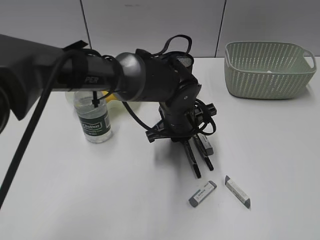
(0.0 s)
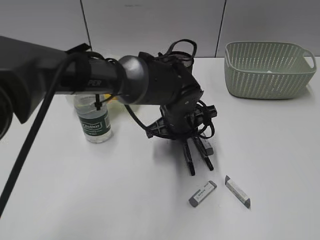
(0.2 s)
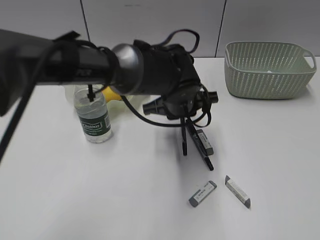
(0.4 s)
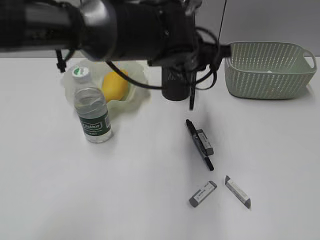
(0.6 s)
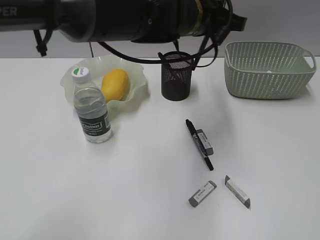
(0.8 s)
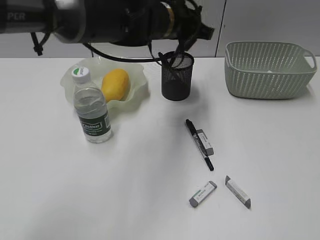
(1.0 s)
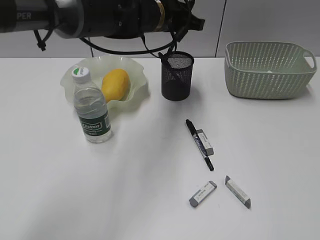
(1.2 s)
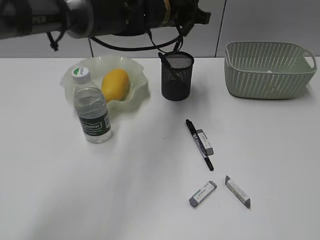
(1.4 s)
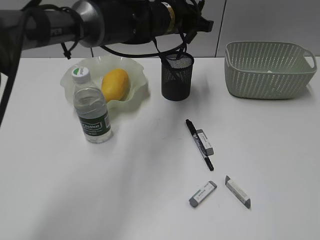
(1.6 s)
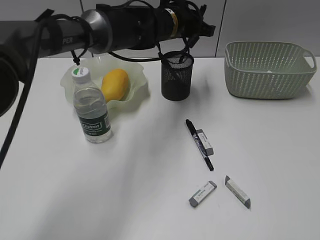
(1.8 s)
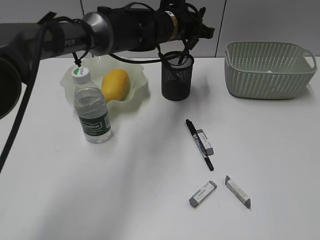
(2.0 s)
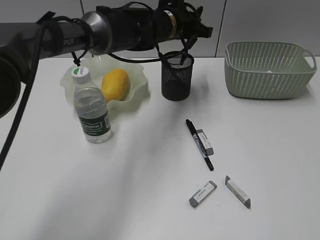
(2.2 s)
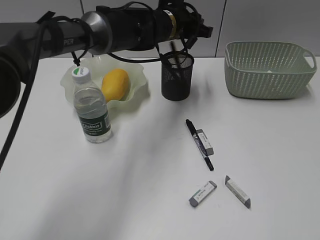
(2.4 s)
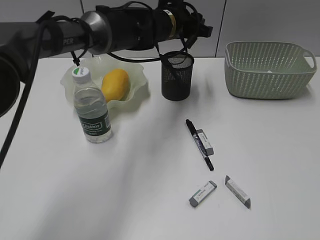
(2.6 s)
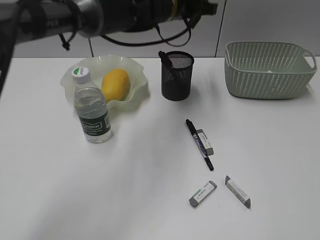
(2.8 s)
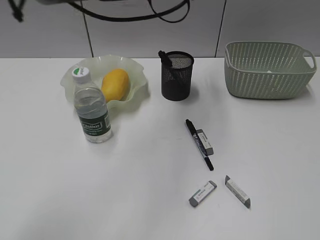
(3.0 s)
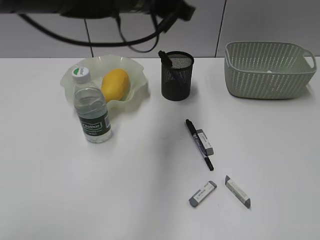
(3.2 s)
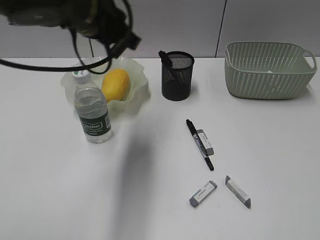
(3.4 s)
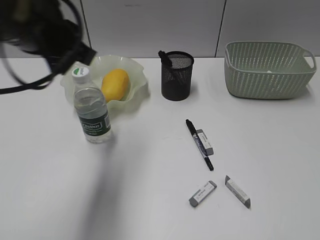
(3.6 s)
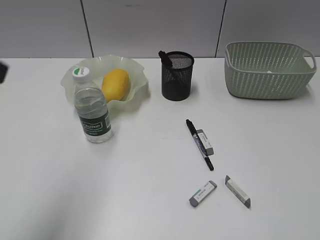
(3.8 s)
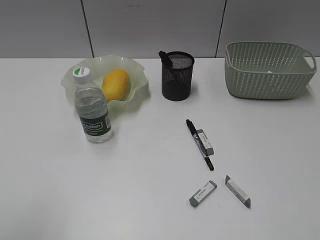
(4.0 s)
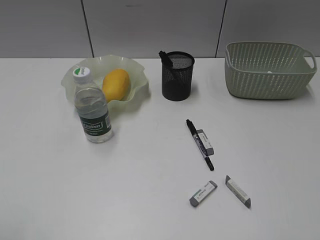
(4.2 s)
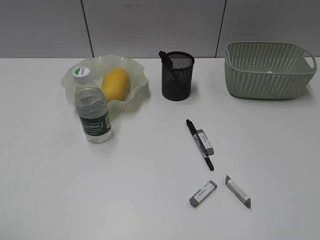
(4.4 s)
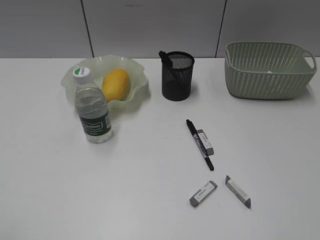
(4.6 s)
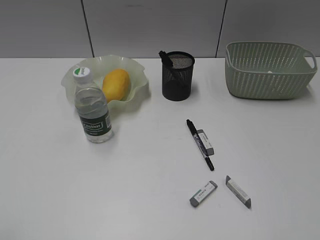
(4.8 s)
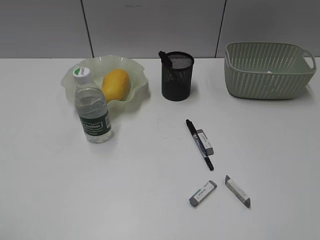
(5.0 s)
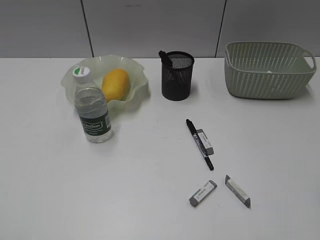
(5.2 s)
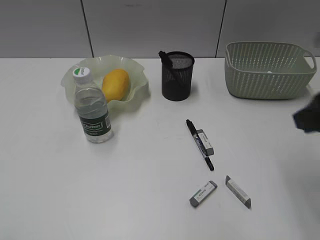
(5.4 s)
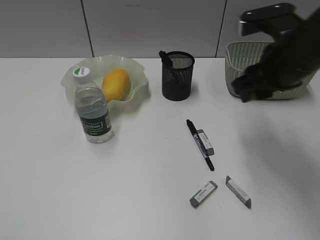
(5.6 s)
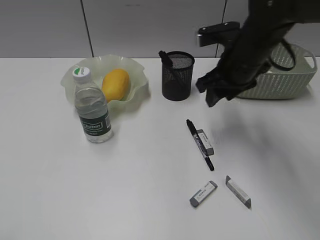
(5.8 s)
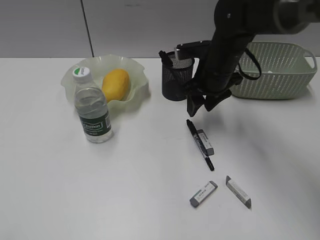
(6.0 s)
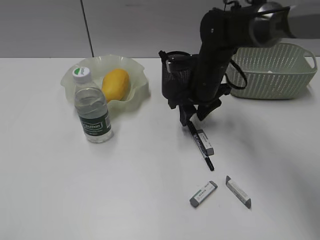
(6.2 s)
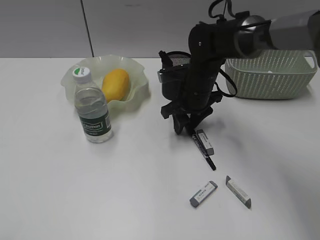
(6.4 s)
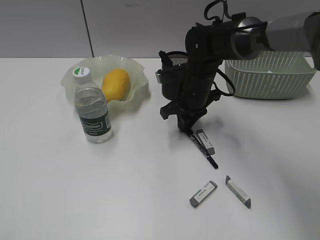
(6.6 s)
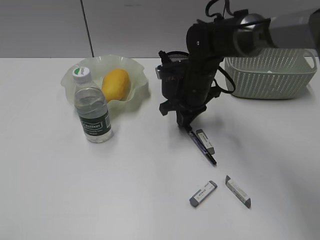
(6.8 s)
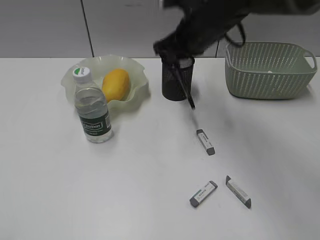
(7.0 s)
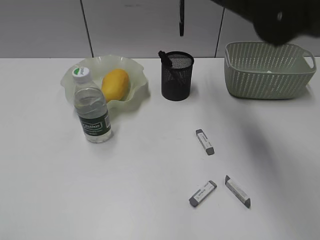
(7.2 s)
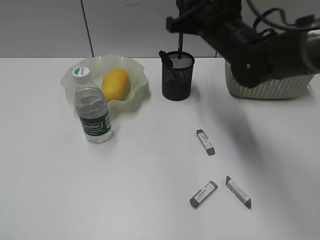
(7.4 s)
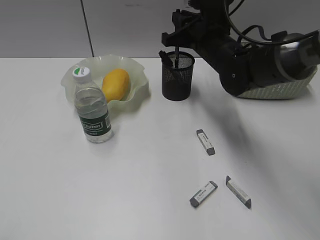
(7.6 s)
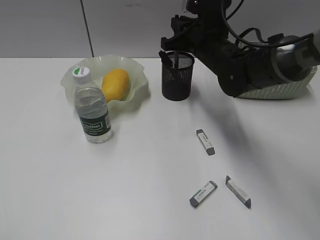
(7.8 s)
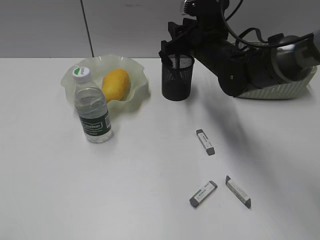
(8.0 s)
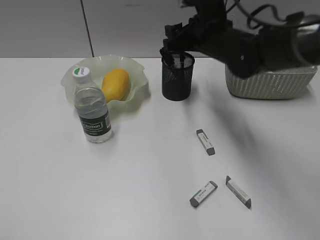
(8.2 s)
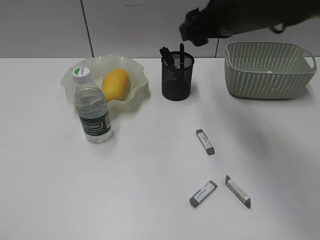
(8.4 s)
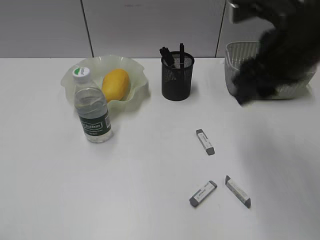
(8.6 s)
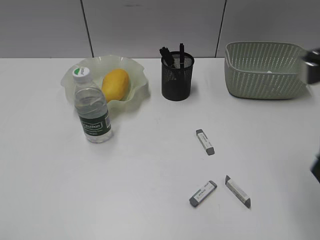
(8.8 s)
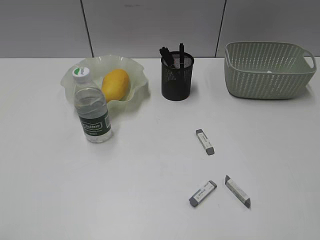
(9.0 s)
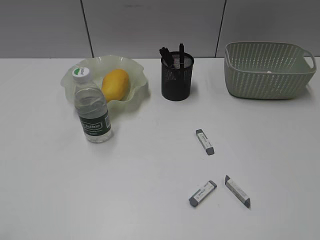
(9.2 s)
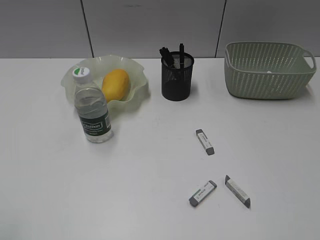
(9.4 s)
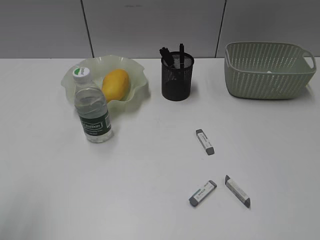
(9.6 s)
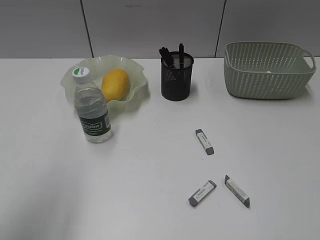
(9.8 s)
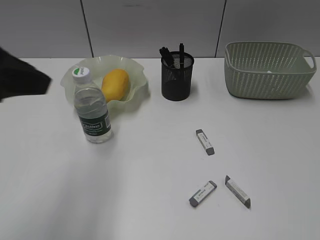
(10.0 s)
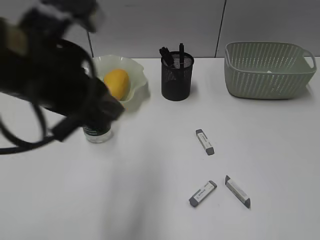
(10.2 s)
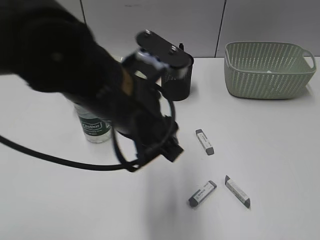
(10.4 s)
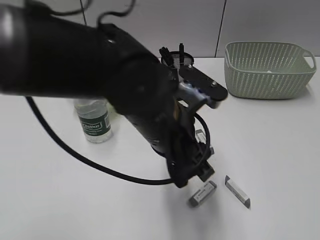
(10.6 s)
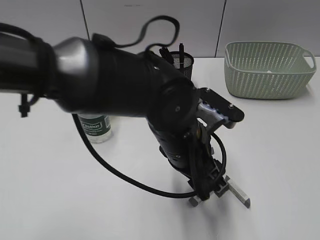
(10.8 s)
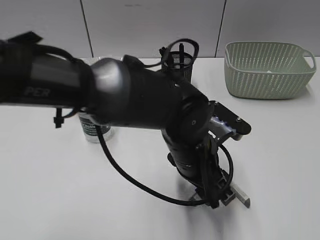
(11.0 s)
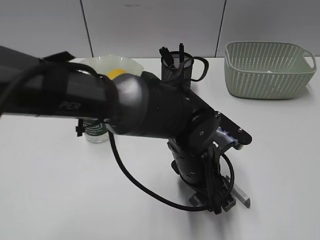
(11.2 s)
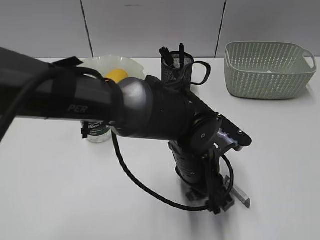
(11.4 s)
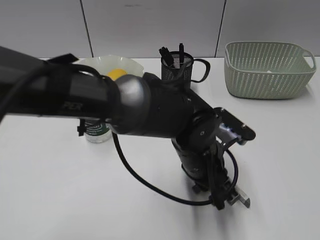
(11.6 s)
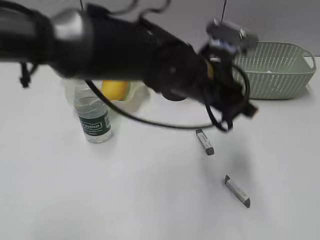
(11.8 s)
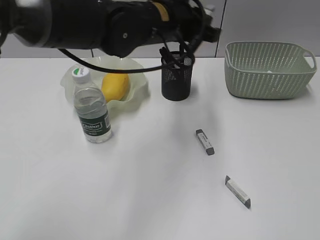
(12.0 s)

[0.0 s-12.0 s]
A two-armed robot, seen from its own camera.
Step, 0.2 to 2.4 s: Place the black pen in pen holder with left gripper.
Step, 2.6 to 6.6 s: Grasp the black pen with right gripper.
Step, 6.8 to 8.2 s: Place the black pen in pen holder with right gripper.
Step, 8.4 to 11.4 s: Grasp the eraser with left gripper.
0.0 to 1.6 s: The left gripper shifts approximately 15 cm forward and upward.
1.6 to 3.0 s: The left gripper travels upward and backward by approximately 10 cm.
3.0 to 4.4 s: The left gripper moves backward and to the left, roughly 50 cm, and opens up.
4.4 to 6.0 s: The right gripper shifts about 50 cm forward and to the left.
6.0 to 7.6 s: The right gripper swings up and down, some 20 cm each way, with 2 reversals, and closes up.
7.6 to 9.0 s: The right gripper travels backward and to the right by some 35 cm, and opens up.
9.0 to 10.4 s: The left gripper travels to the right and forward by approximately 35 cm. Meanwhile the right gripper is displaced backward by approximately 10 cm.
10.4 to 12.0 s: The left gripper goes about 15 cm forward, travels downward and back again, some 15 cm each way, and closes its fingers.

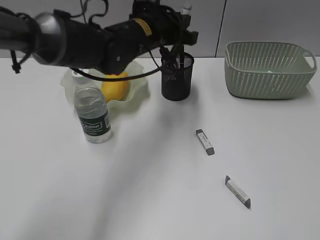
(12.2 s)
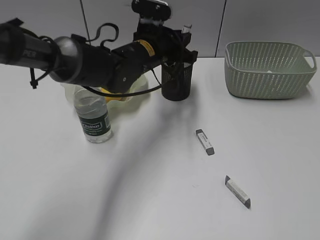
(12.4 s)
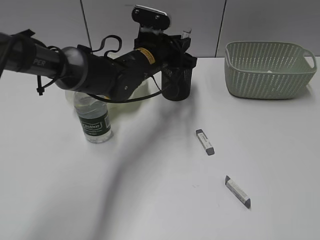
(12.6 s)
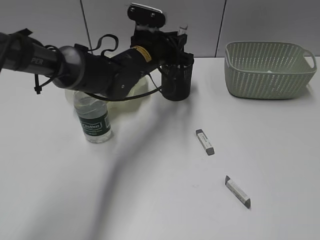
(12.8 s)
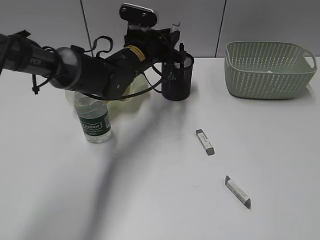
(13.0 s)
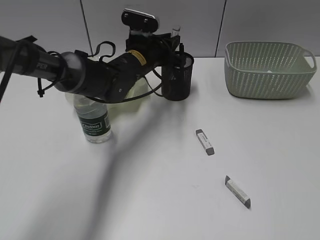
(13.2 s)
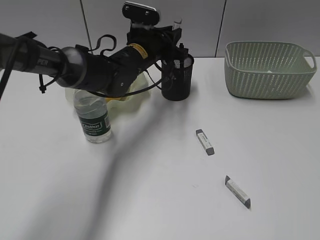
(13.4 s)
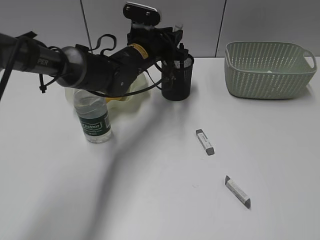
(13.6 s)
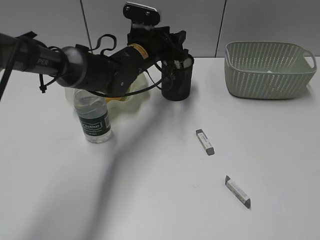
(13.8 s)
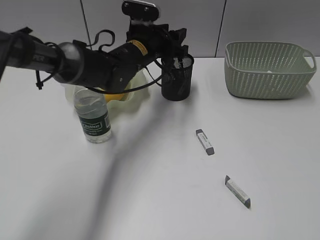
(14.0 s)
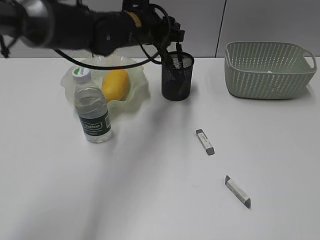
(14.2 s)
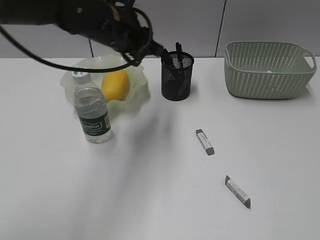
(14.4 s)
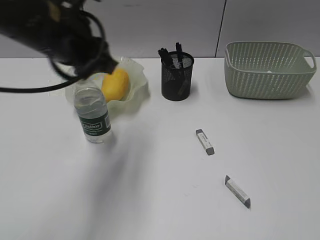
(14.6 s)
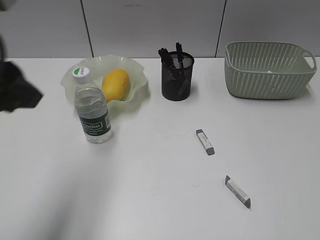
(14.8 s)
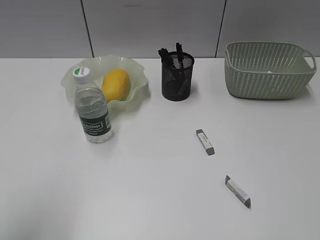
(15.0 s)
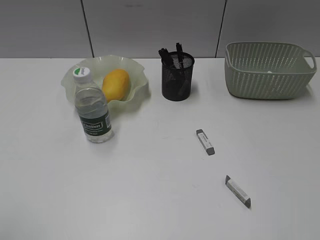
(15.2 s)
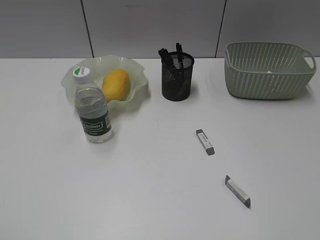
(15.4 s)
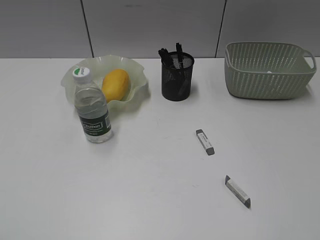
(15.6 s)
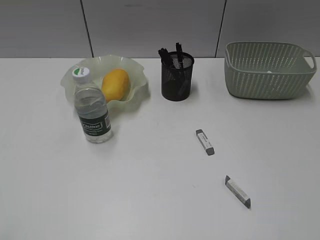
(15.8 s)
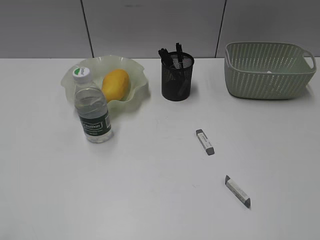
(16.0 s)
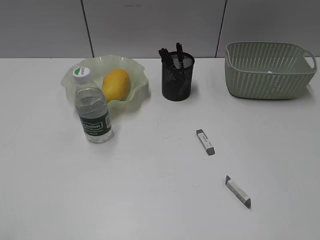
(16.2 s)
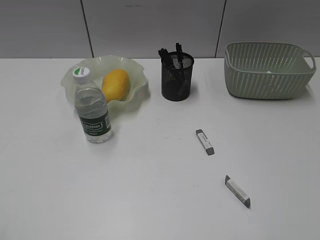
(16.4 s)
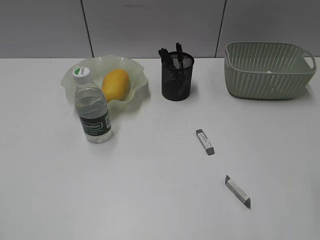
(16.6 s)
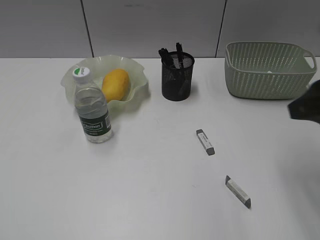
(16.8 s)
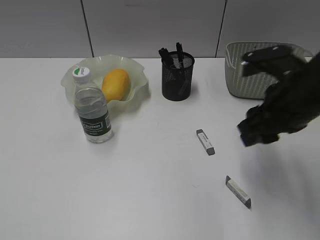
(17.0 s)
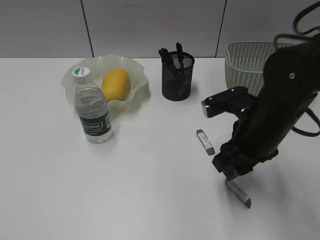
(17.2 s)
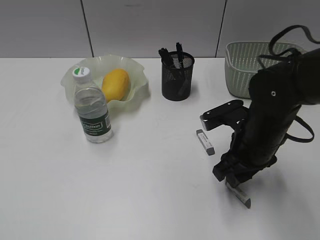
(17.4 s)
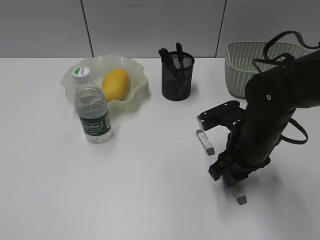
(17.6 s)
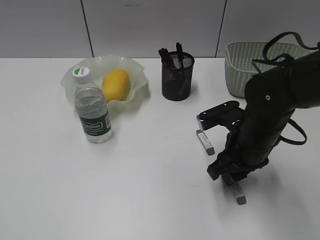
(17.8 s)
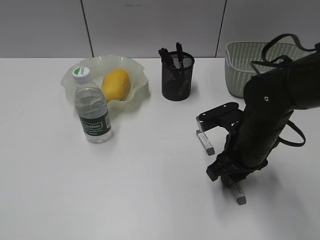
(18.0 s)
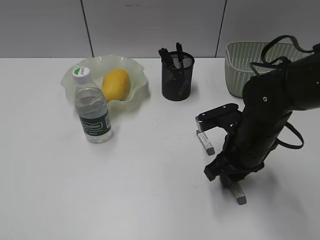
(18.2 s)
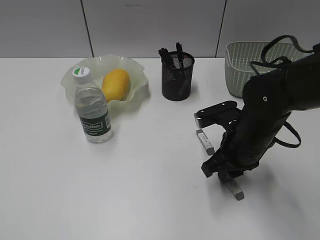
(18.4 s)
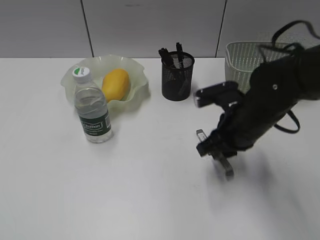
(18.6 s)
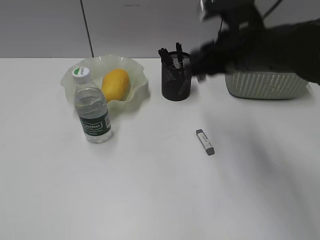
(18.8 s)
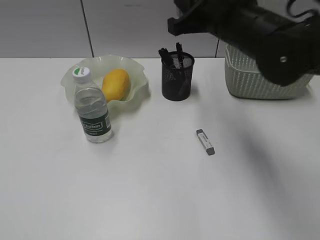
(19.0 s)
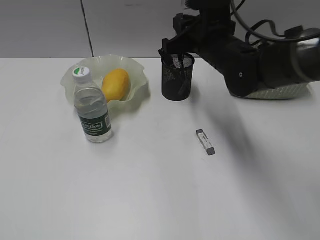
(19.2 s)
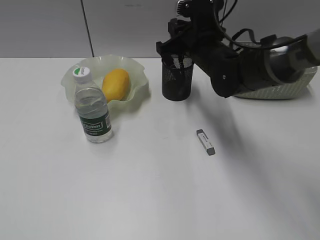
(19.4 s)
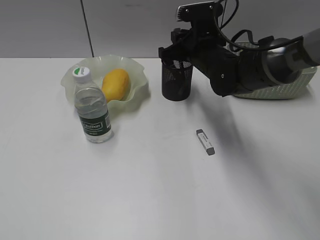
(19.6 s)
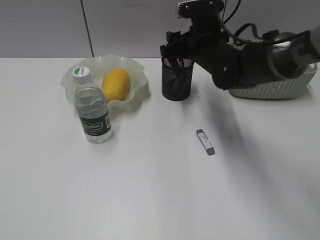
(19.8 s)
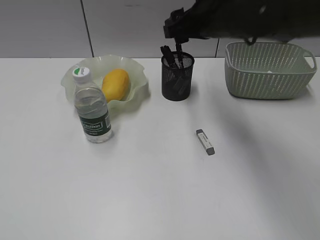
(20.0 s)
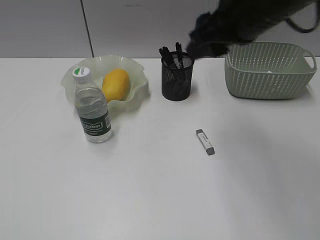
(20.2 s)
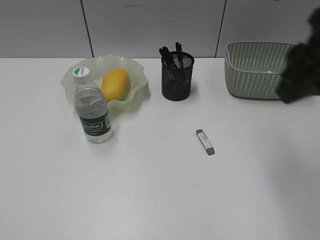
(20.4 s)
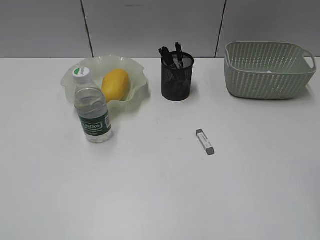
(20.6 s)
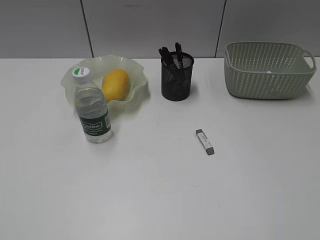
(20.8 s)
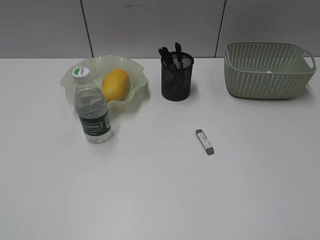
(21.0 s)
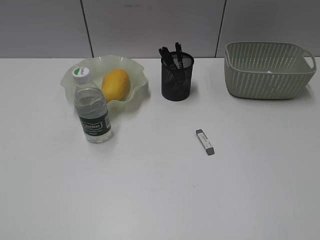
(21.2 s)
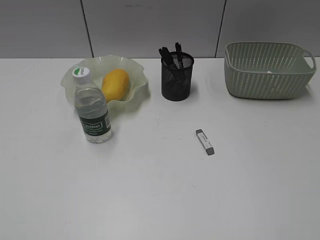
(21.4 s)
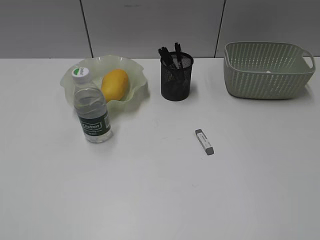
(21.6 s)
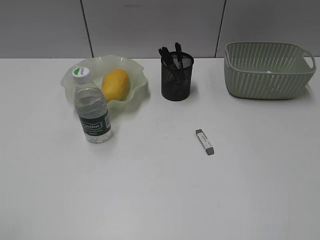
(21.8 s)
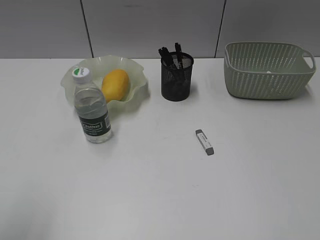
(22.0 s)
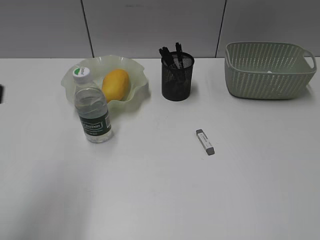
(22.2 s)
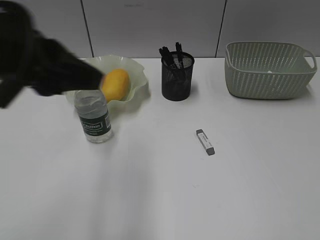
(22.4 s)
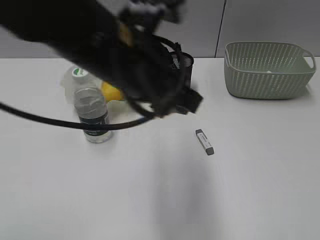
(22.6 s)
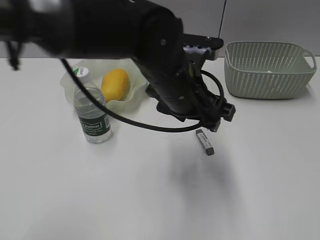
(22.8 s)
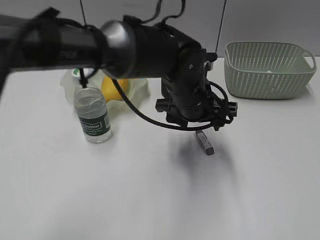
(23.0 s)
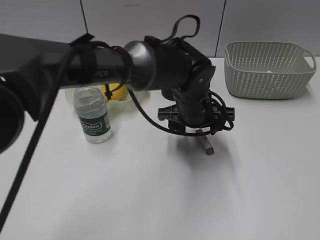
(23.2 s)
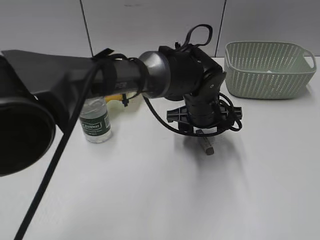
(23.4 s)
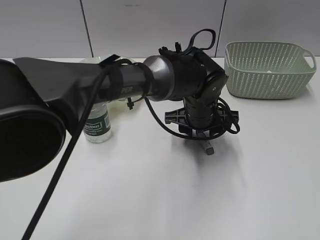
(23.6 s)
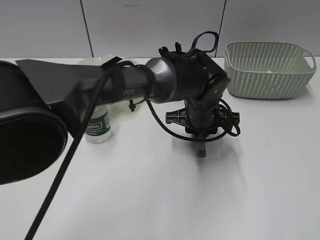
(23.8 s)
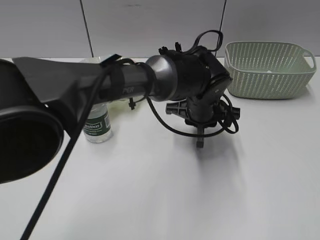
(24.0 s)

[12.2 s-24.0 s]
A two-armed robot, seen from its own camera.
Step, 12.2 to 13.8 s: Place the eraser in pen holder with left gripper.
Step, 14.0 to 18.2 s: Grasp the eraser with right gripper.
Step, 18.4 to 19.8 s: Place the eraser in pen holder with right gripper.
Step, 20.0 to 23.8 s: Grasp the eraser with left gripper.
12.2 to 13.6 s: The left gripper heads downward, covering about 5 cm.
13.6 to 15.2 s: The left gripper is displaced backward and to the left by roughly 50 cm, and opens.
16.6 to 18.2 s: The right gripper travels downward, forward and to the left by approximately 25 cm.
18.2 to 19.6 s: The right gripper goes approximately 15 cm forward.
19.6 to 21.0 s: The right gripper goes some 50 cm backward and to the right, and opens, then closes once more.
21.0 to 22.6 s: The left gripper goes about 40 cm to the right and forward.
22.6 to 24.0 s: The left gripper goes roughly 20 cm downward, to the right and forward, and opens, then closes again.
